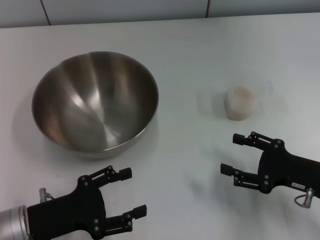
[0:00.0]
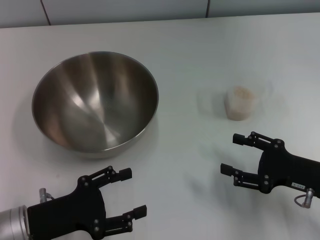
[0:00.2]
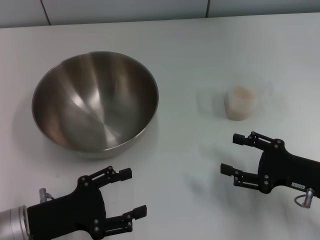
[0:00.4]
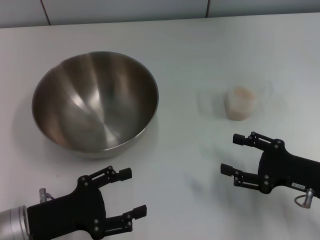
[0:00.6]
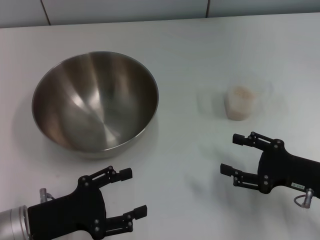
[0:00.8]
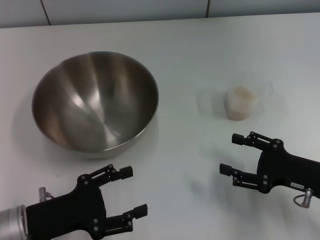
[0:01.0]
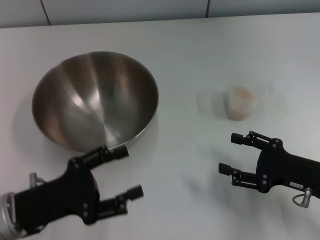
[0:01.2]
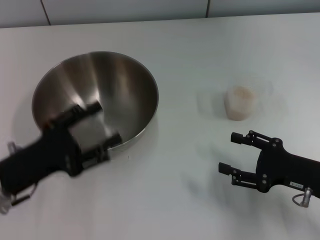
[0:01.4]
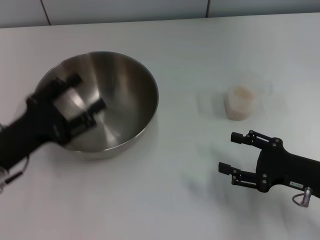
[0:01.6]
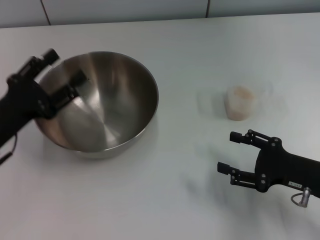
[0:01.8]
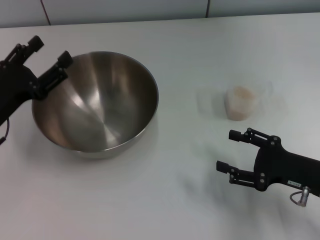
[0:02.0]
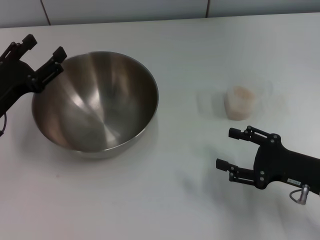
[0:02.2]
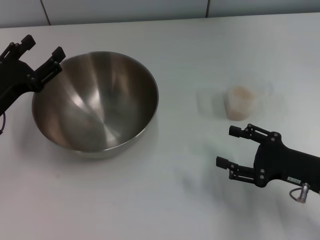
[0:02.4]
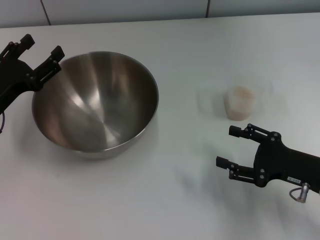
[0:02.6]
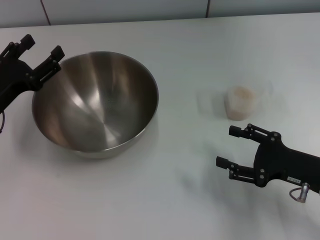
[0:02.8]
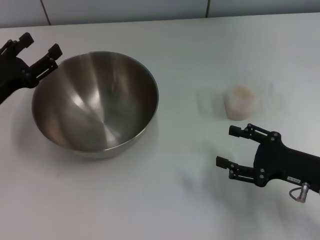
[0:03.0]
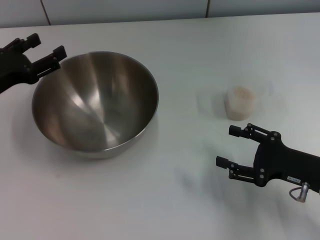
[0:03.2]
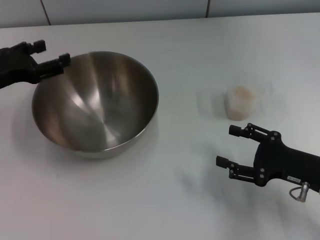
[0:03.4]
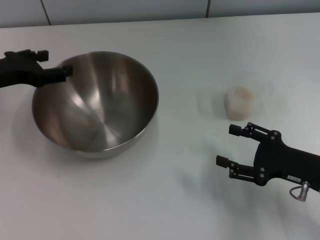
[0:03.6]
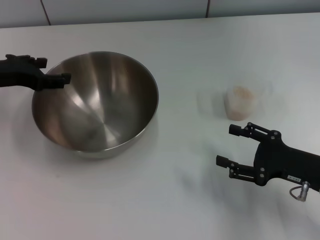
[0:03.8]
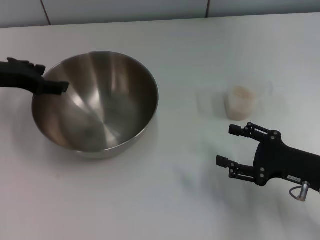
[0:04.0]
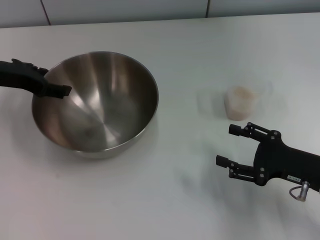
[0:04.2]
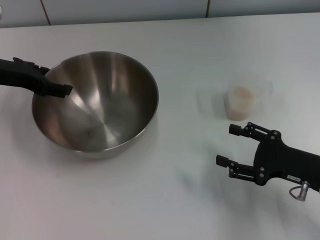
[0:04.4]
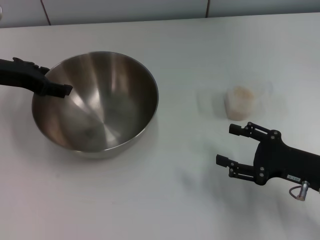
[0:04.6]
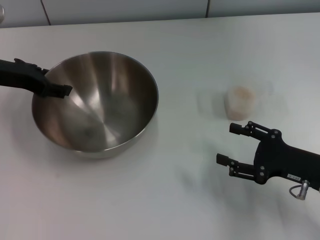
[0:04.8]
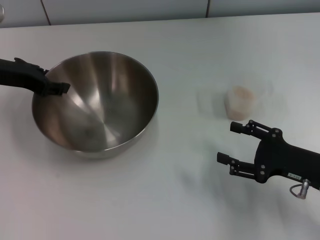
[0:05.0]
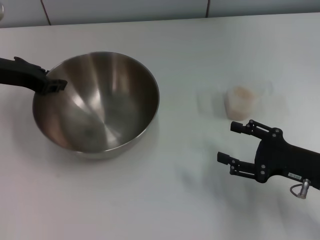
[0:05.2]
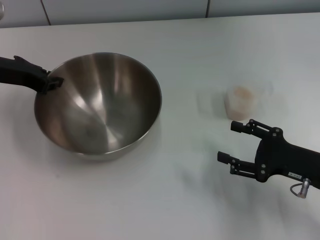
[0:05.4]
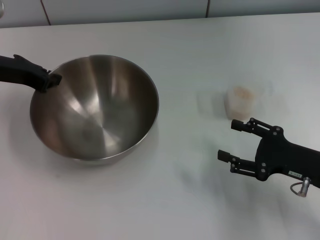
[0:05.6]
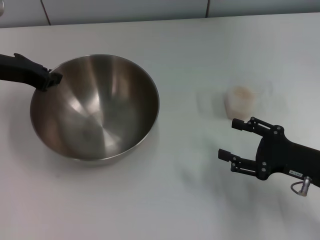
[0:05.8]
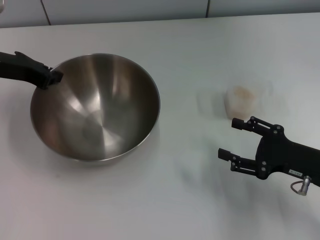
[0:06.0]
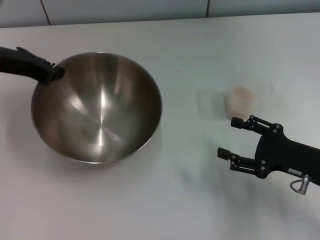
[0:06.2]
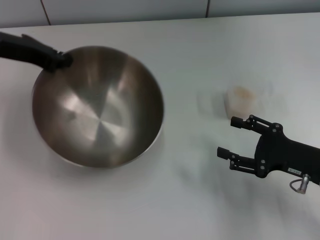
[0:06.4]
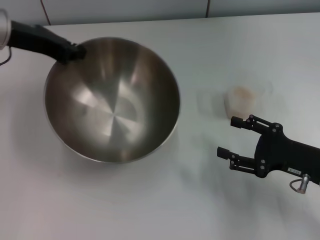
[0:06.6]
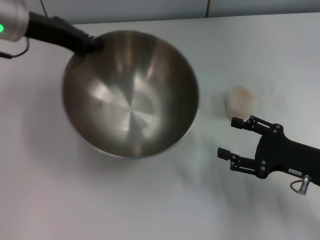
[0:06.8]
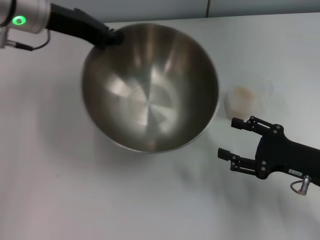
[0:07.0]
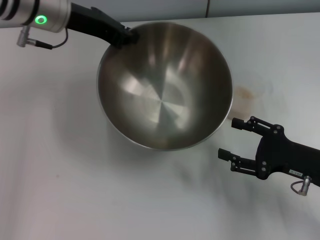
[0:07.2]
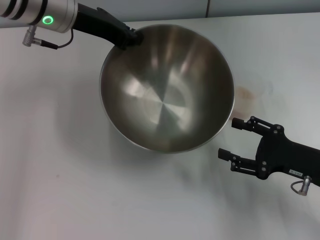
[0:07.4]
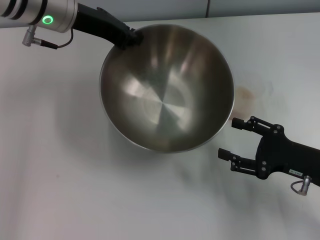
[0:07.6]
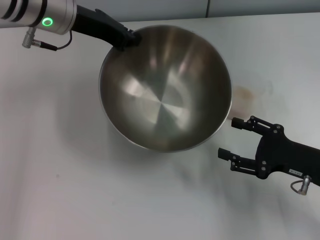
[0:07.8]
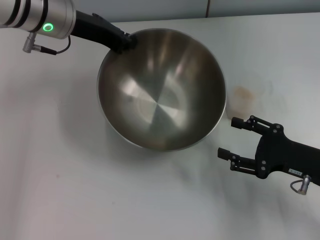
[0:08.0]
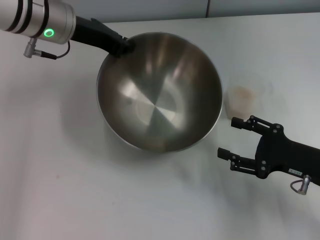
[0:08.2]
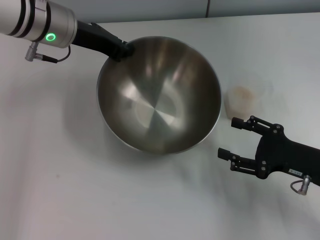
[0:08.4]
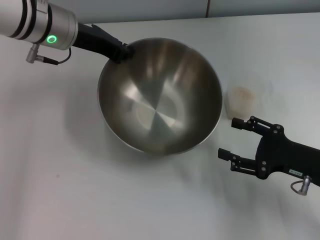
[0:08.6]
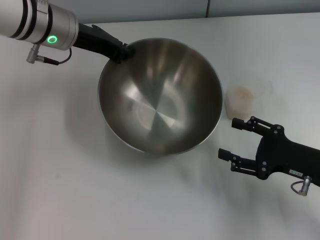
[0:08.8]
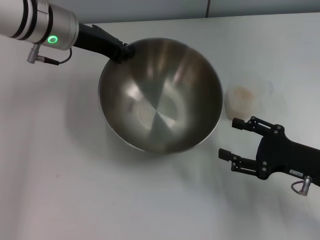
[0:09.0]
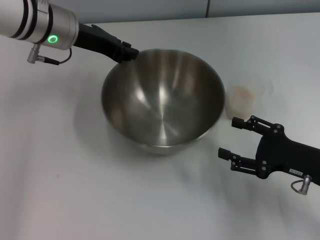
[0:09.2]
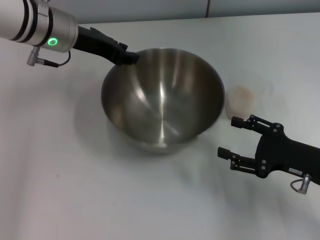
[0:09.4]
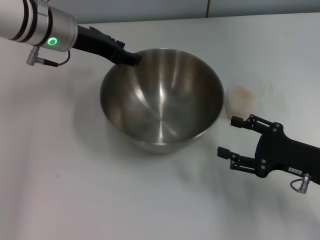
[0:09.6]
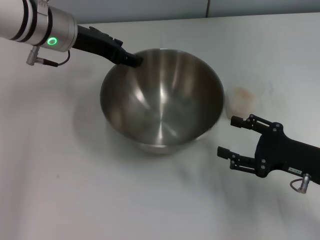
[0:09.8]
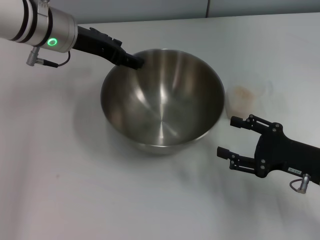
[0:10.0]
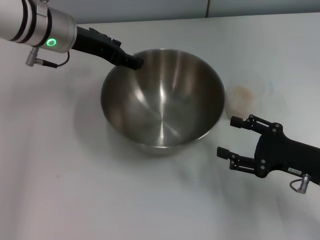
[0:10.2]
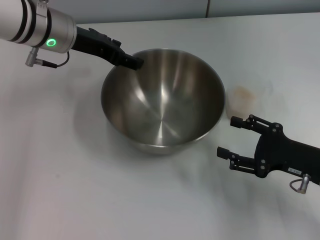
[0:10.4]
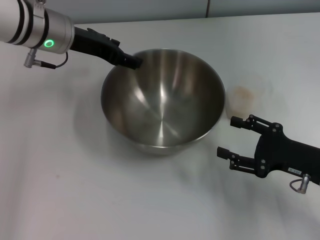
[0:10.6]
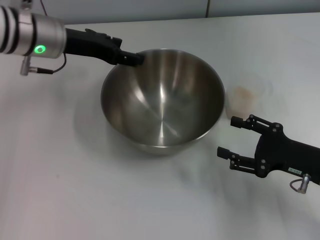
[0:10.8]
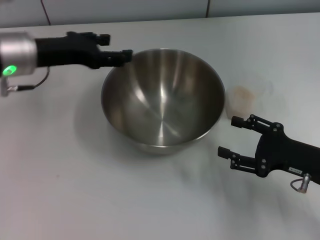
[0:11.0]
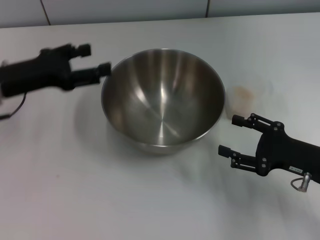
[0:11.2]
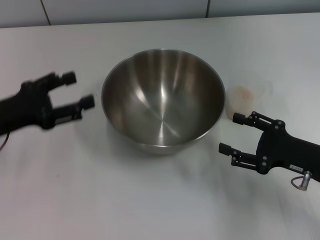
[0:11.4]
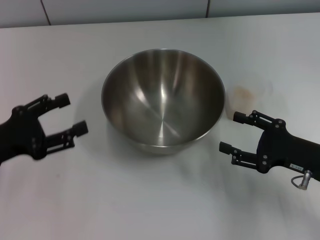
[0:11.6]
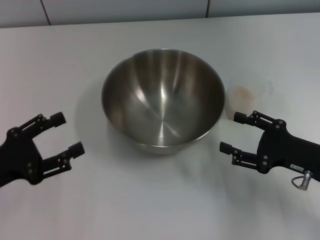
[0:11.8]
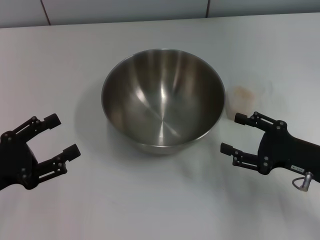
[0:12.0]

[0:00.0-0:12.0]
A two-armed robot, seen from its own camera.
Task of the whole recording: Place the bowl in the middle of the table with one hand and pour the rice from the grain cup into it with the other hand.
Step, 0:00.0 to 0:06.4: Pick up the bowl with the left gripper.
Step, 0:06.8 to 0:11.2: Place the bowl in the center of view with the left gripper.
0:00.0 to 0:01.6: The left gripper travels forward by approximately 5 cm.
0:01.6 to 0:03.0: The left gripper moves forward, roughly 5 cm.
0:03.0 to 0:04.4: The left gripper is displaced forward and upward by approximately 10 cm.
0:04.4 to 0:06.0: The left gripper closes up.
0:06.0 to 0:07.6: The left gripper is displaced to the right by about 10 cm.
0:07.6 to 0:09.0: The grippers make only small movements.
0:09.0 to 0:10.4: The left gripper opens its fingers.
0:10.4 to 0:12.0: The left gripper goes some 30 cm backward, to the left and downward.

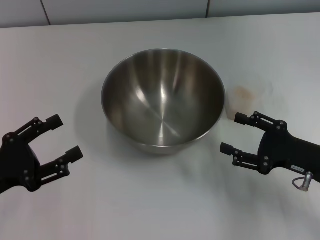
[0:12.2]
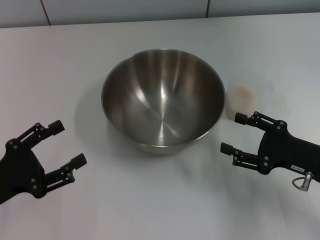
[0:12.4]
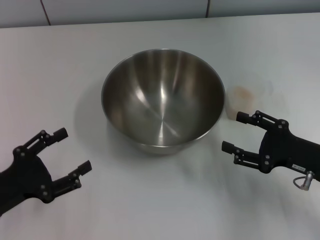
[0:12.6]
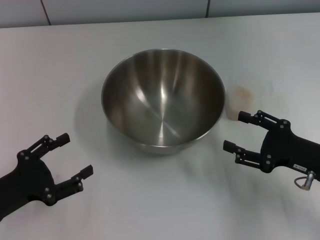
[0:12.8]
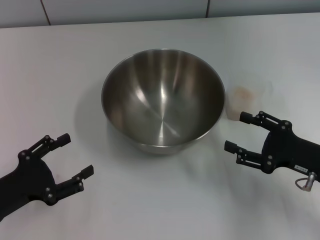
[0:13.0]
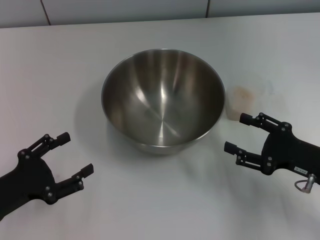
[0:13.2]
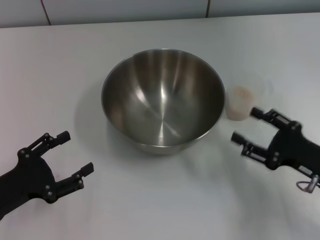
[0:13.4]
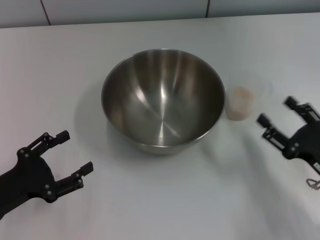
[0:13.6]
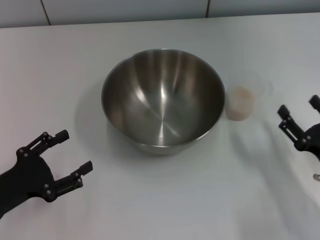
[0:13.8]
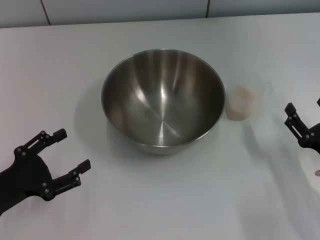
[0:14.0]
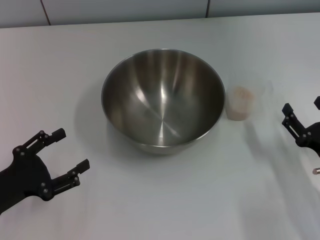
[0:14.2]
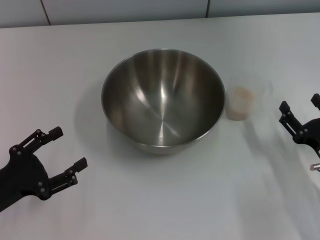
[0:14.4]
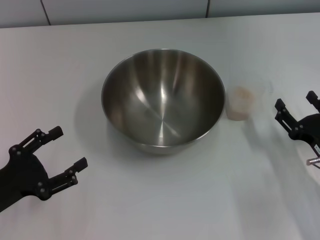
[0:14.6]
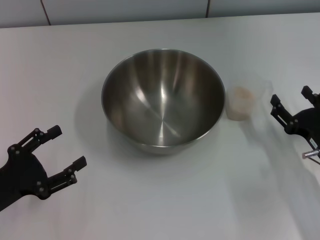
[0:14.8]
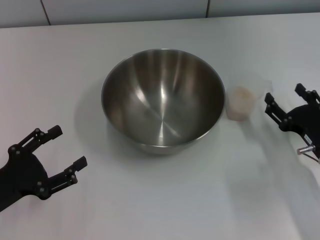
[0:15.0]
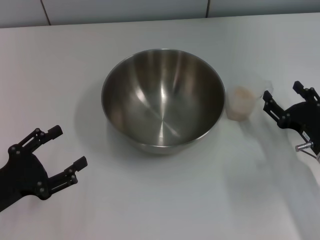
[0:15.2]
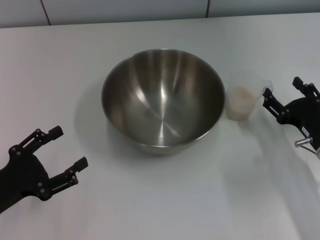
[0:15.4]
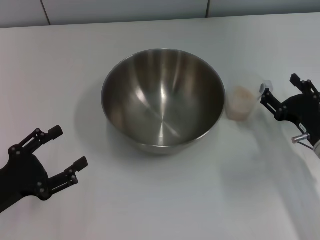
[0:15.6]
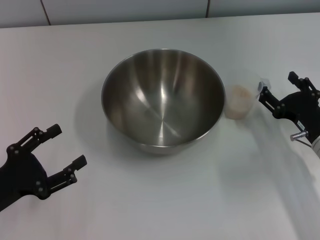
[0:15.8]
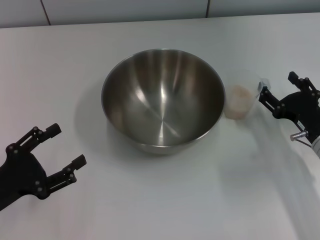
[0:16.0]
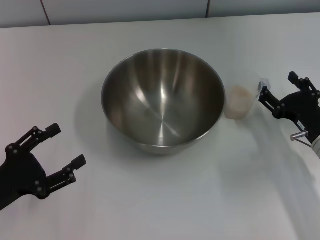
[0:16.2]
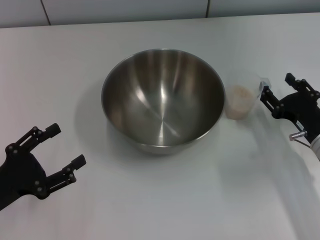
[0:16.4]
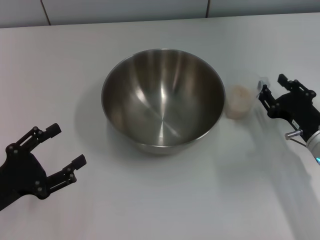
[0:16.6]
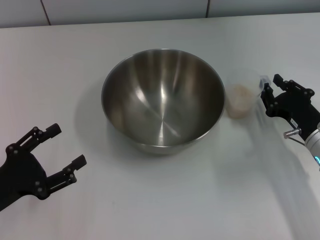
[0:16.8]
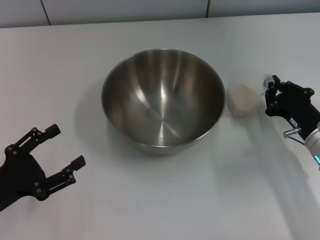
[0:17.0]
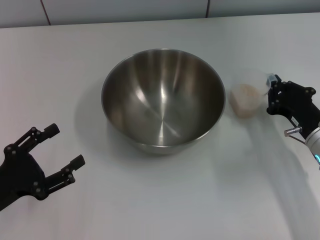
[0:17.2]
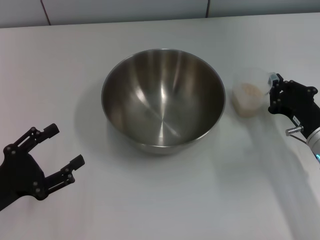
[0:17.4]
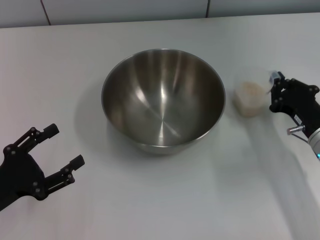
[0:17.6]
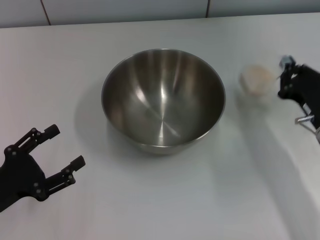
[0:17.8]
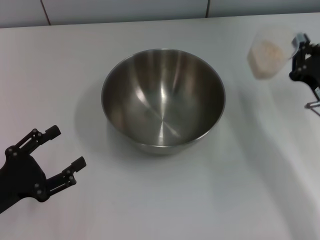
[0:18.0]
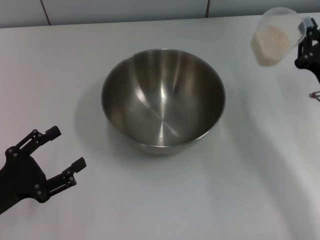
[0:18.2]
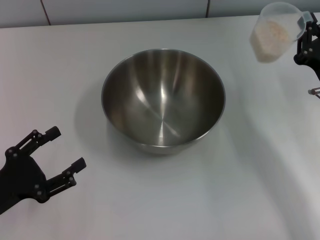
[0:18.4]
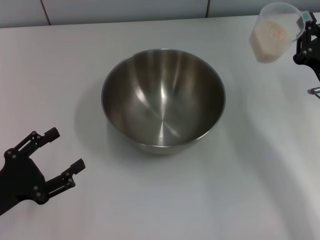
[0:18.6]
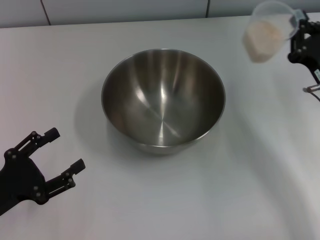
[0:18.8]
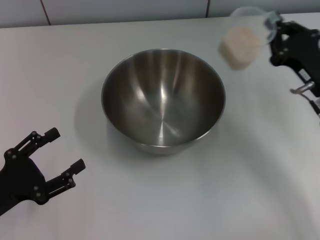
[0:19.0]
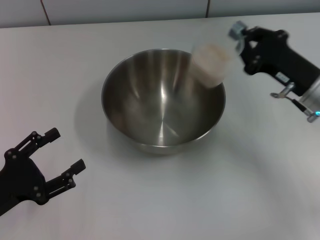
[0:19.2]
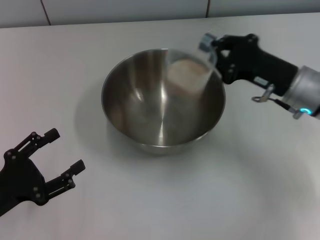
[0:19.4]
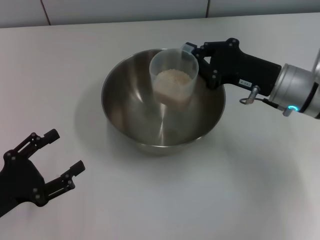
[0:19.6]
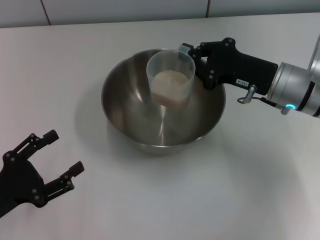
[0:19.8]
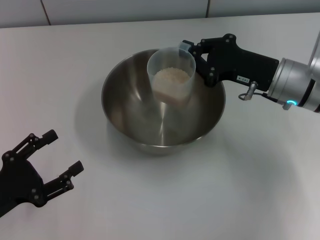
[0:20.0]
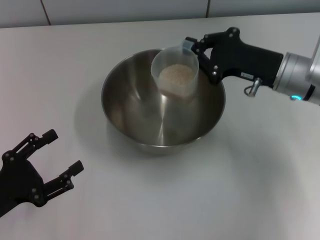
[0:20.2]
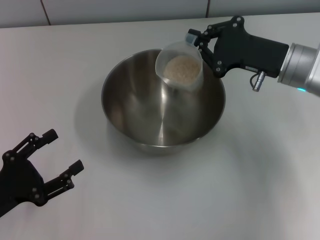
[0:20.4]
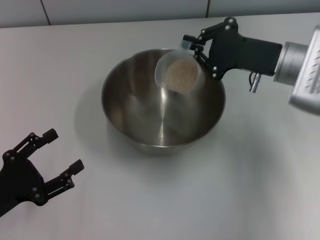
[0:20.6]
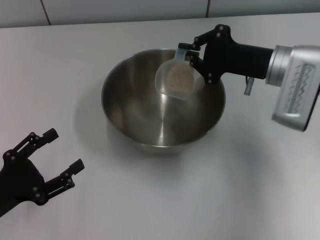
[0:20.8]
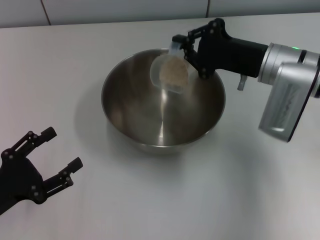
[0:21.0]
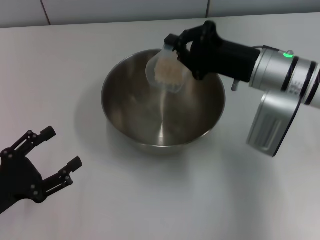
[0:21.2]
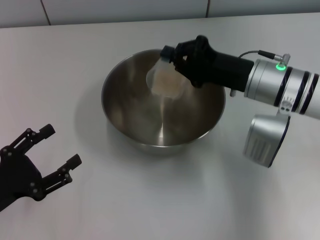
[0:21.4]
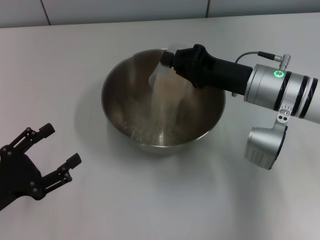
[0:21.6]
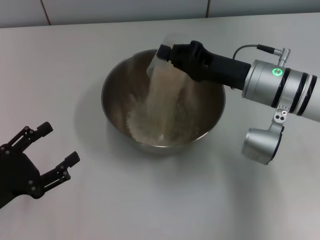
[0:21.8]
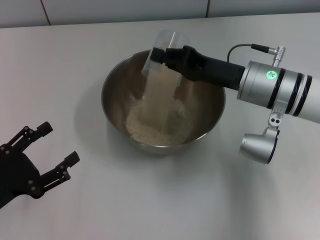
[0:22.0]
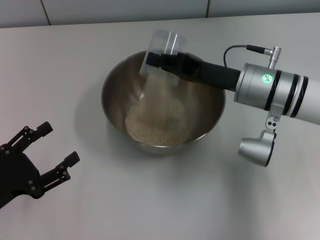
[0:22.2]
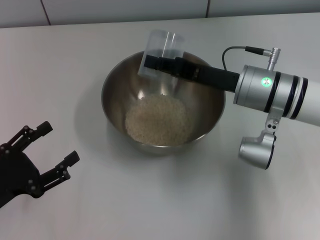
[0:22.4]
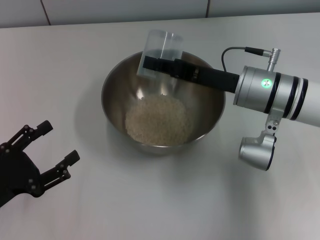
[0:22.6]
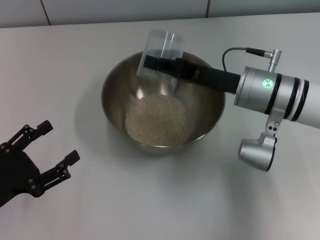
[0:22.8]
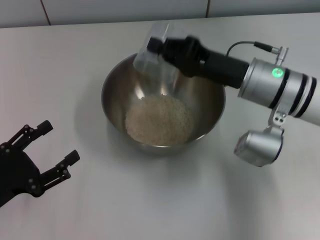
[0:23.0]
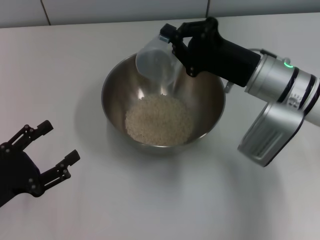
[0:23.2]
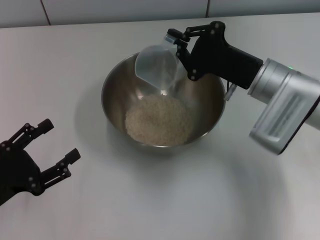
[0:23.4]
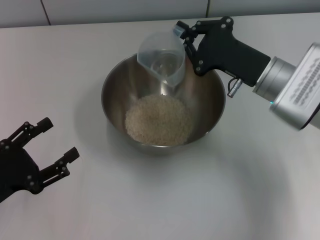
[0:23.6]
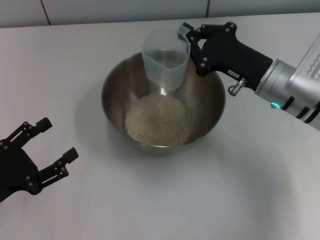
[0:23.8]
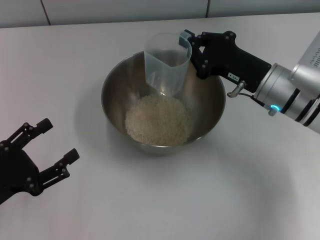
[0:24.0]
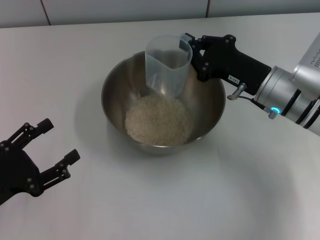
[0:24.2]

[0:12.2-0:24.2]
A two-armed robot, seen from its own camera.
Task of the whole recording: Place the bowl in the middle of the table with one hand and pour the rice from the grain cup into it with the other hand.
Step, 0:12.2 to 0:18.6: Pick up the cup with rice in it with the right gripper.
Step, 0:18.8 to 0:23.2: Pour the rice from the cup into the bowl with the right gripper.
0:12.2 to 0:13.8: The right gripper ends up approximately 5 cm from where it was.
0:13.8 to 0:15.2: The right gripper heads forward, covering approximately 5 cm.
0:15.2 to 0:16.6: The grippers move only a little.
0:16.6 to 0:18.2: The right gripper heads upward, covering about 5 cm, and closes its fingers.
0:18.2 to 0:19.8: The right gripper heads to the left and forward, covering about 10 cm.
